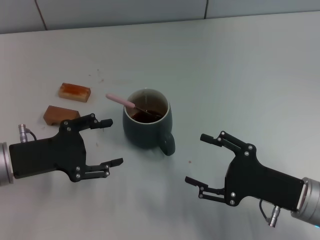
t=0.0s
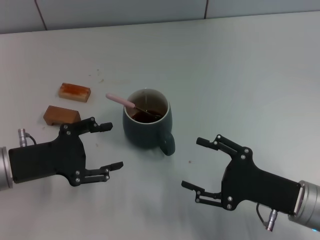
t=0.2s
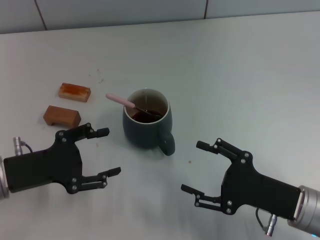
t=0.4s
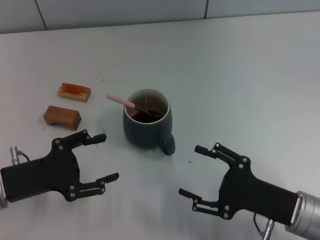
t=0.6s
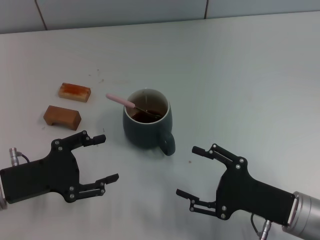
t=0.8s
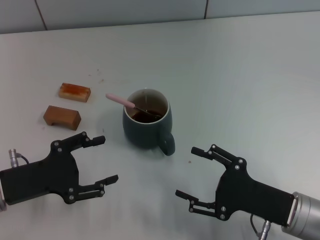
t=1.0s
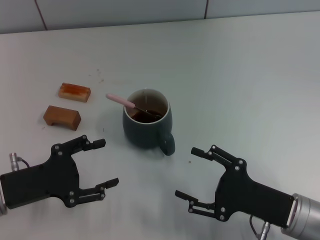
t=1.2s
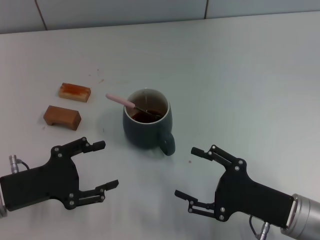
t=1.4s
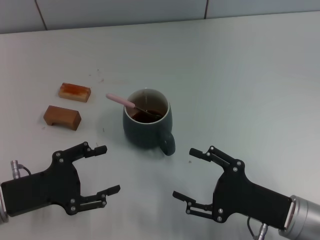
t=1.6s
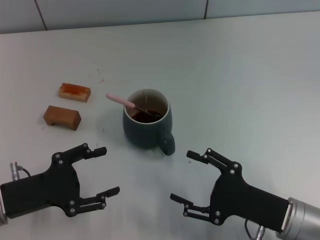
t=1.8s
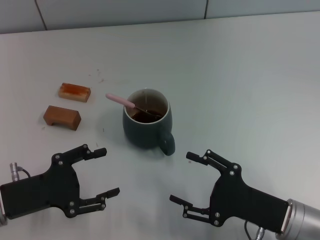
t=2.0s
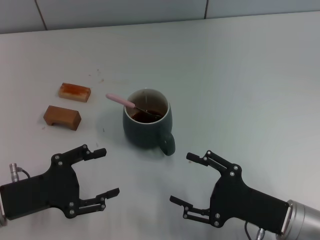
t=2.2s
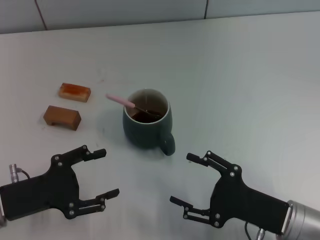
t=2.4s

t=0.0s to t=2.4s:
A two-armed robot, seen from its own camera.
Task of the whole recording: Move the grey cup to the center, lift the pink spoon, stir it three times in the cup, and put the spoon into the cup.
t=0.0s to t=2.4s: The grippers move only a little.

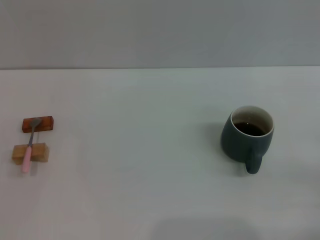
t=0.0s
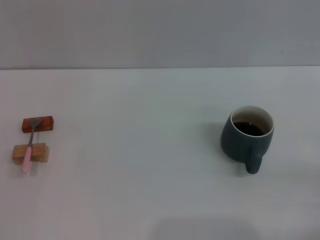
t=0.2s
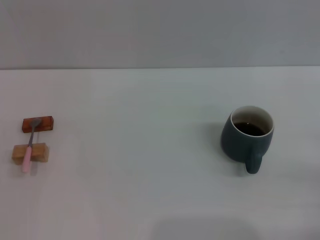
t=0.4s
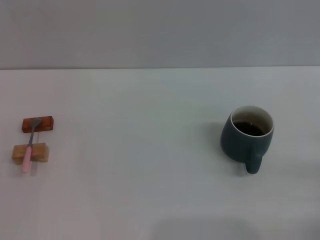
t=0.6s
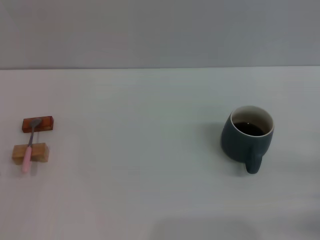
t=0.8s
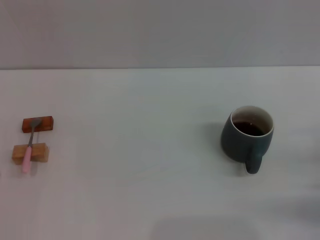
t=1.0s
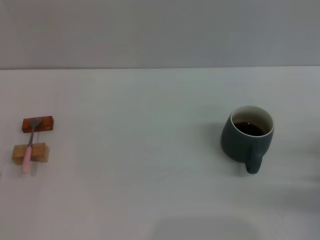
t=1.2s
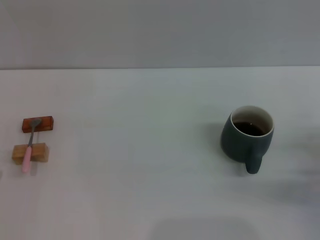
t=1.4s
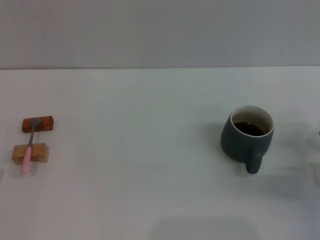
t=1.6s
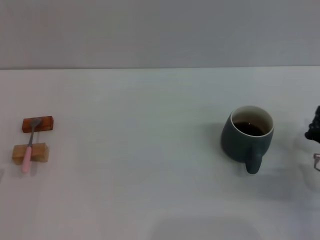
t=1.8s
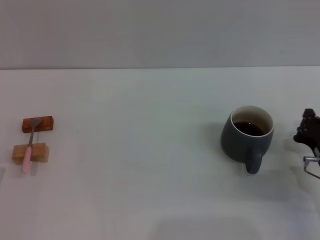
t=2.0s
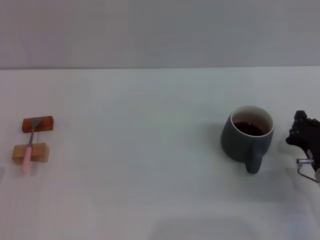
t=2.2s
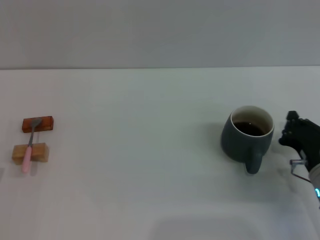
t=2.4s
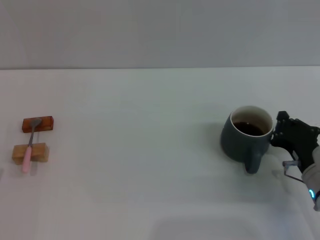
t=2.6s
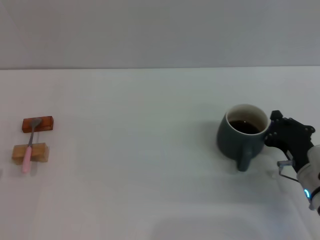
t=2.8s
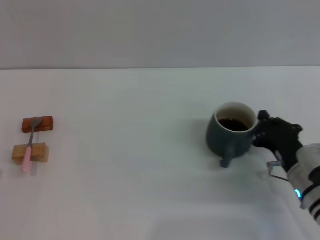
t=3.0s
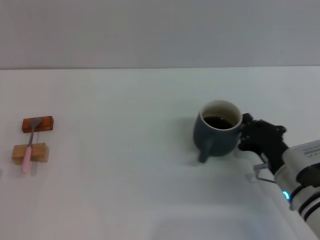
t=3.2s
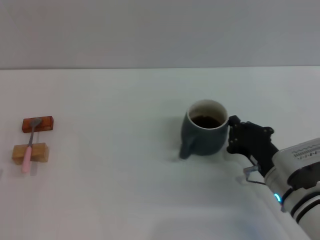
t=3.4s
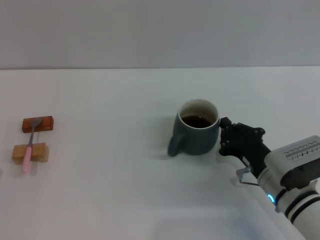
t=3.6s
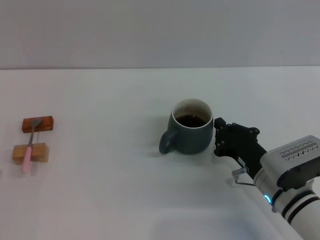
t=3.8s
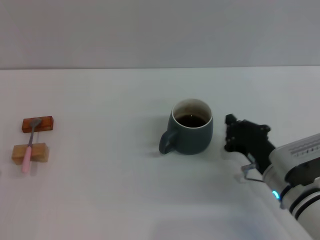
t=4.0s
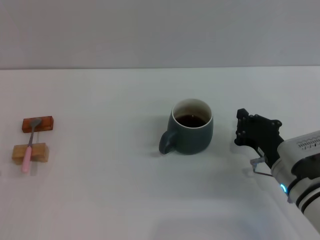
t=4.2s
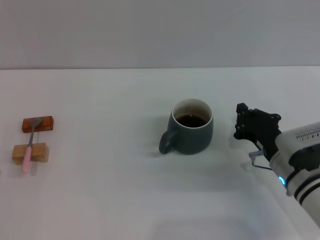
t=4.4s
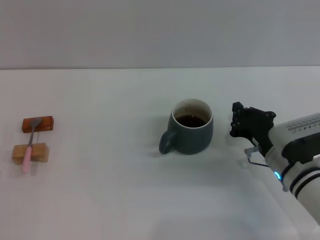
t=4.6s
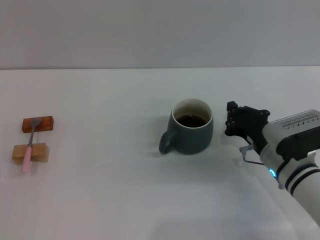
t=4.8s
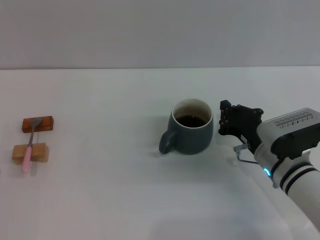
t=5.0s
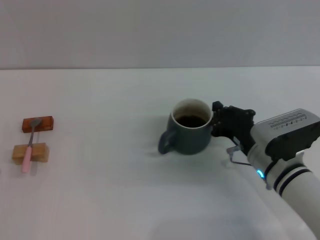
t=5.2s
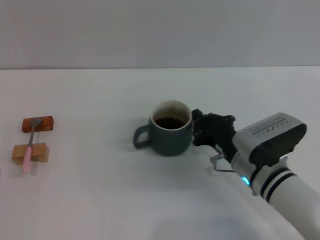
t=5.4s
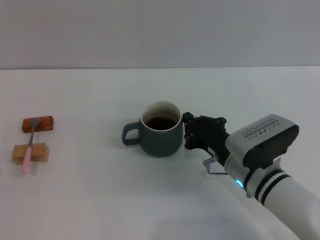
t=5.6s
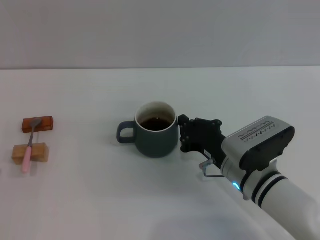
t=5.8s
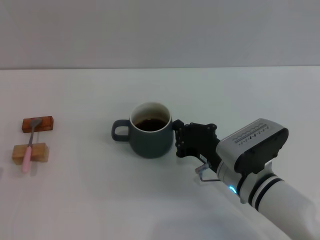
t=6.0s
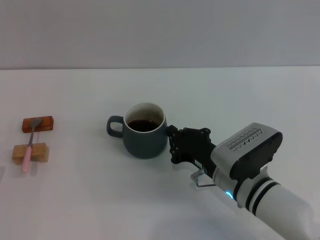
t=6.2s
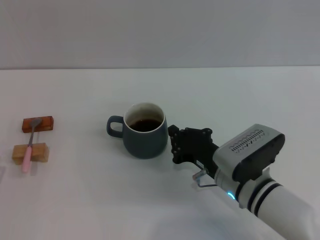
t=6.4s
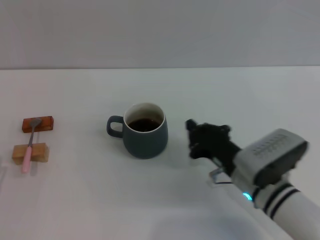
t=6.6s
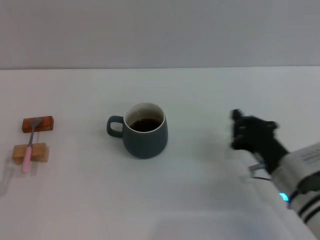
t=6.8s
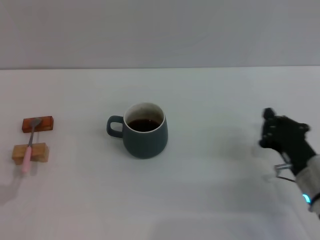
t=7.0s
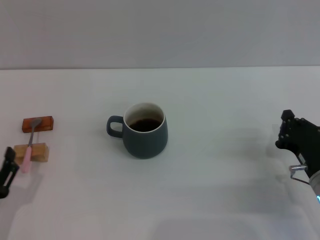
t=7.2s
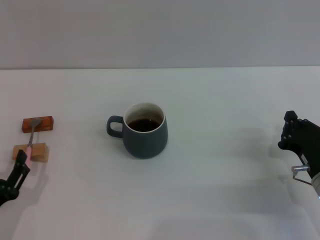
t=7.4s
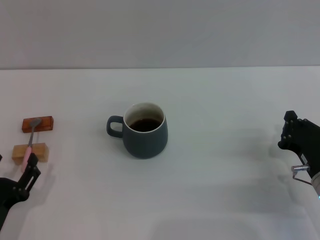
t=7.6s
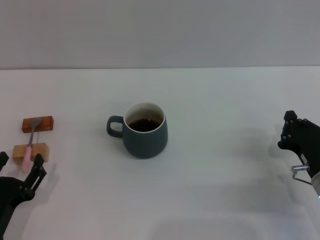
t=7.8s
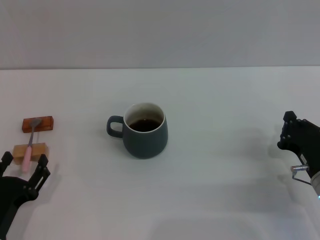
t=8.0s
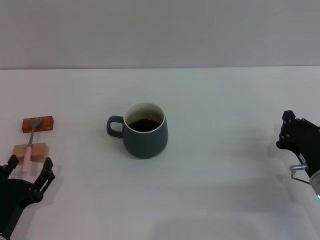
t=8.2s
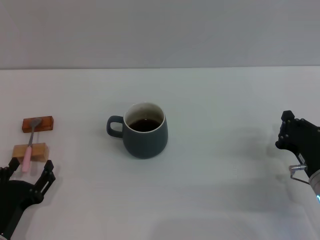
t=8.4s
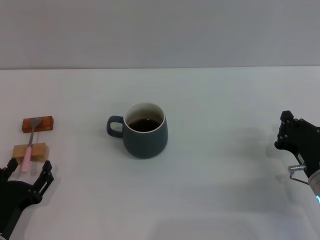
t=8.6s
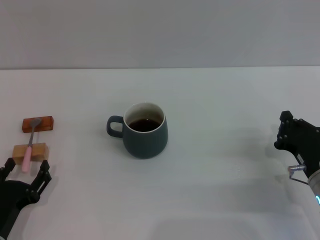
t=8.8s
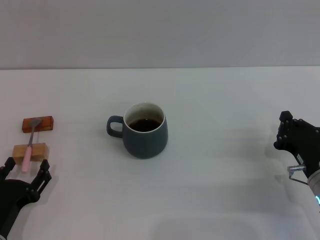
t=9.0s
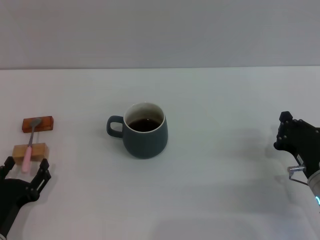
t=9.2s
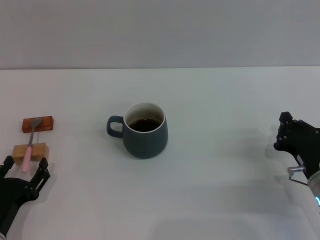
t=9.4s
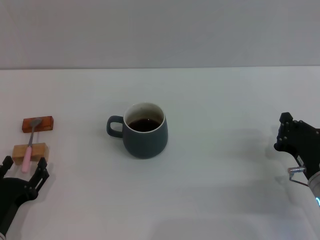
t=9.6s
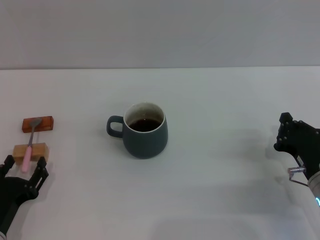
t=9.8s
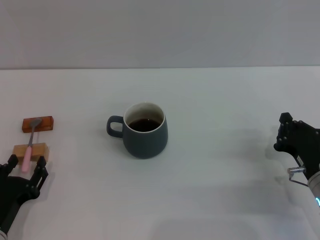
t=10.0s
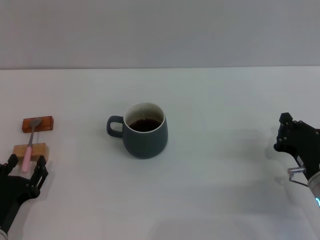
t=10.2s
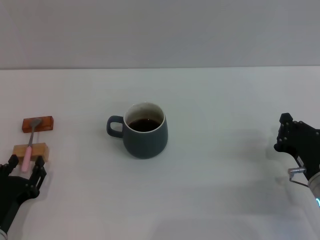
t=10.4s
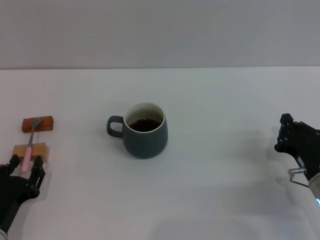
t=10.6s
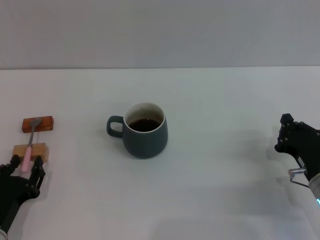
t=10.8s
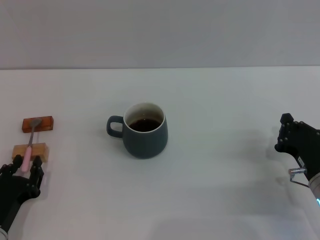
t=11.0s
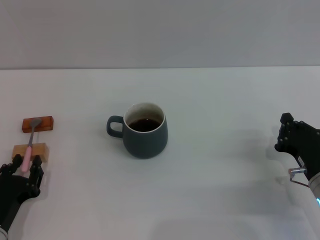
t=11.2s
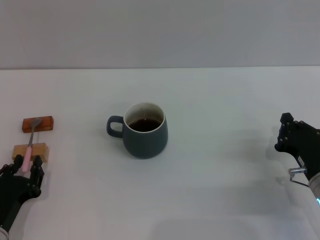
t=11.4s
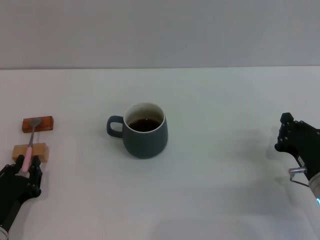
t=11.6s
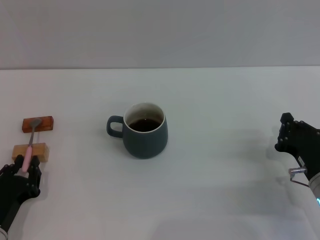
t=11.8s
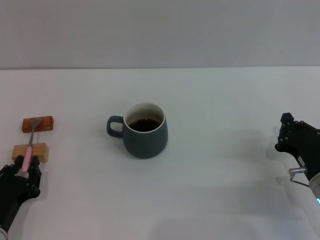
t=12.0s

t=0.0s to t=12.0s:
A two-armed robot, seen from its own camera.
Task of the whole recording: Move the grey cup to the center, lift the pink spoon, stir it three times in the cup, and put the spoon into the cup.
Step, t=0.0s to t=7.0s: Move the cup with coffee to the center of view with the right gripper.
t=0.0s to t=1.6s: The right gripper is displaced forward by some 10 cm.
t=1.6s to t=3.0s: The right gripper heads to the left, covering roughly 10 cm.
t=3.0s to t=4.4s: There are only small adjustments of the grippers.
t=4.4s to t=6.0s: The right gripper moves to the left, approximately 10 cm.
t=6.0s to t=7.6s: The left gripper ends up approximately 5 cm from where it was. Meanwhile the right gripper heads to the right, covering roughly 15 cm.
t=7.6s to t=9.0s: The grippers move only a little.
t=9.0s to t=10.4s: Neither gripper changes place.
t=10.4s to t=12.0s: The left gripper closes up.

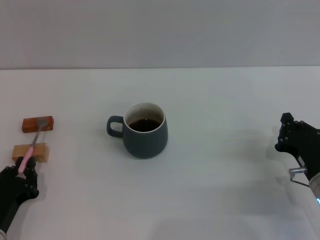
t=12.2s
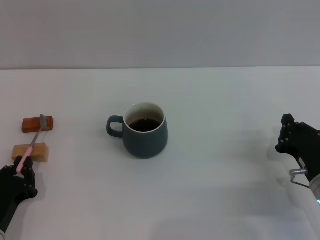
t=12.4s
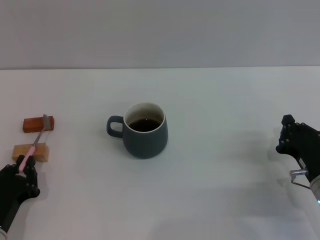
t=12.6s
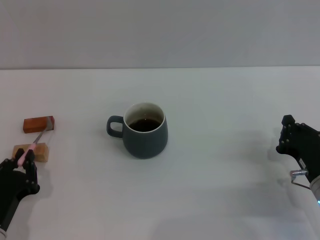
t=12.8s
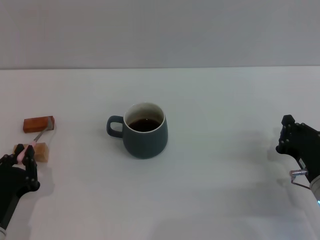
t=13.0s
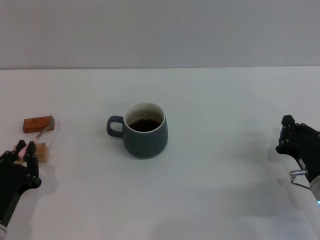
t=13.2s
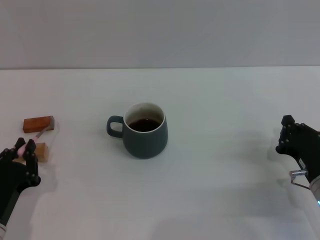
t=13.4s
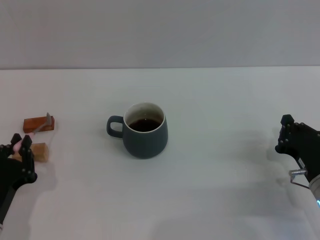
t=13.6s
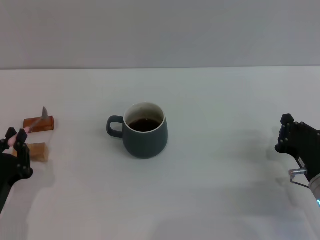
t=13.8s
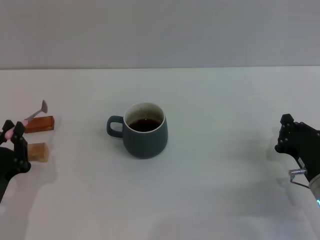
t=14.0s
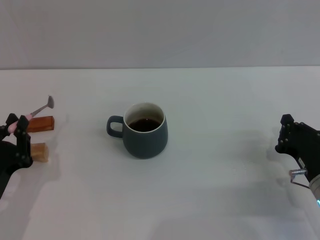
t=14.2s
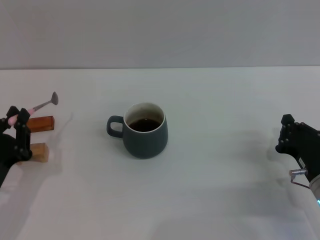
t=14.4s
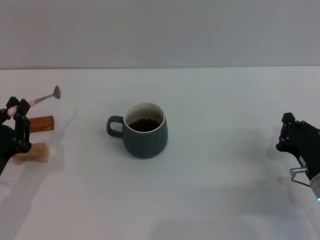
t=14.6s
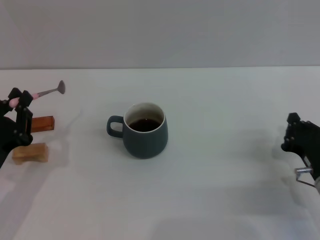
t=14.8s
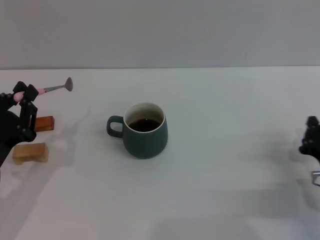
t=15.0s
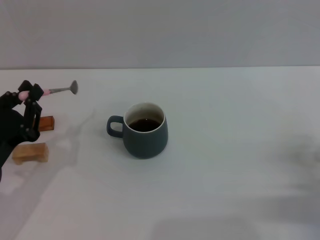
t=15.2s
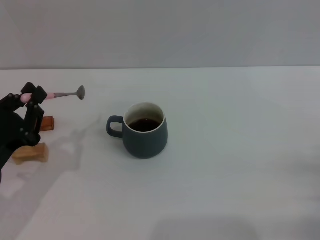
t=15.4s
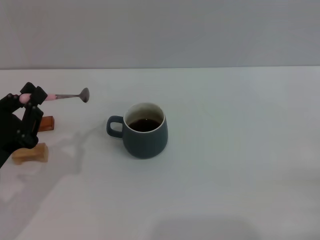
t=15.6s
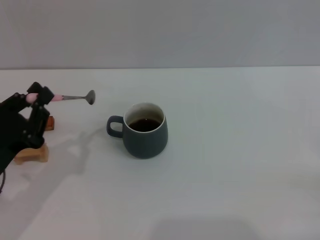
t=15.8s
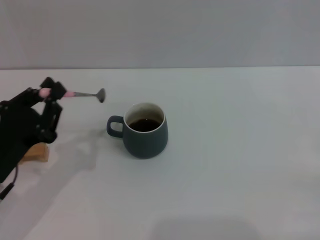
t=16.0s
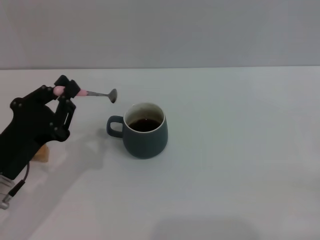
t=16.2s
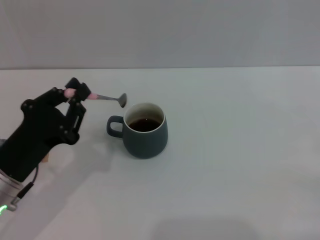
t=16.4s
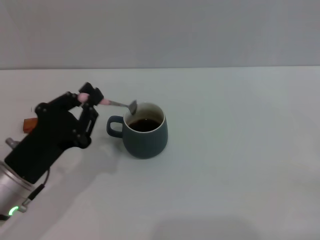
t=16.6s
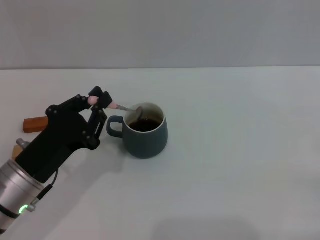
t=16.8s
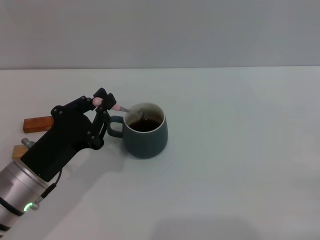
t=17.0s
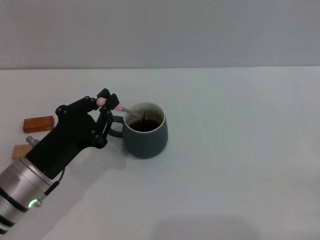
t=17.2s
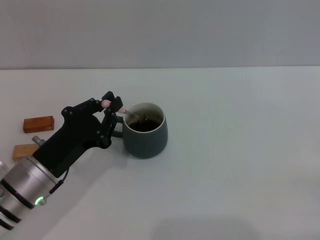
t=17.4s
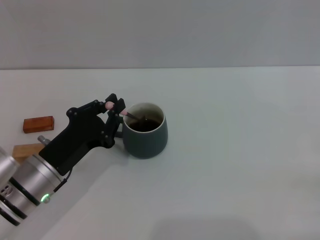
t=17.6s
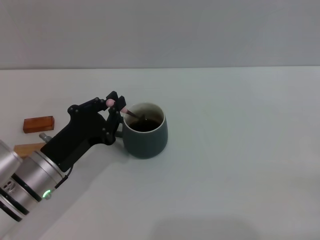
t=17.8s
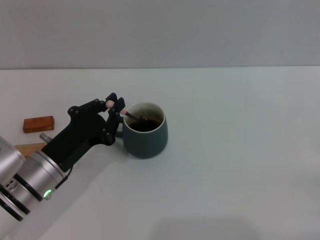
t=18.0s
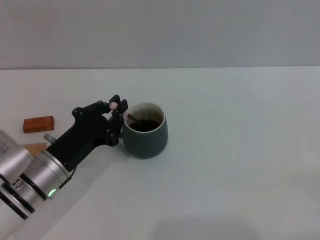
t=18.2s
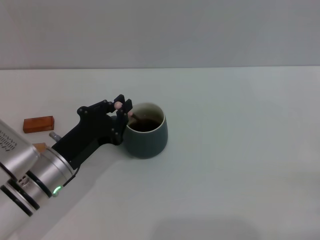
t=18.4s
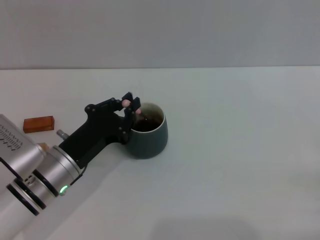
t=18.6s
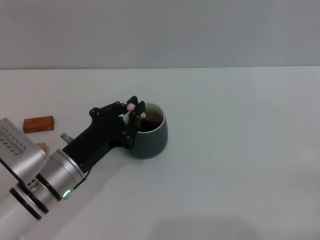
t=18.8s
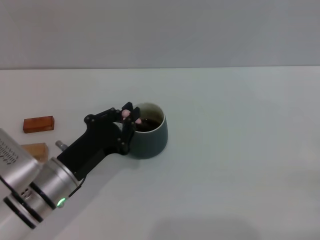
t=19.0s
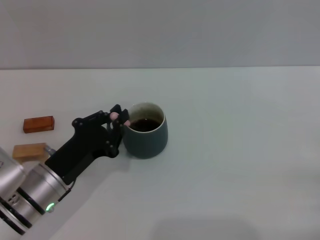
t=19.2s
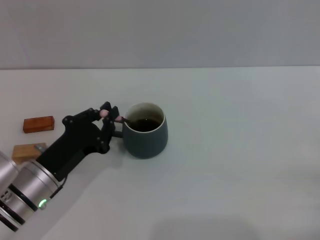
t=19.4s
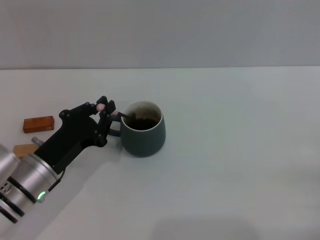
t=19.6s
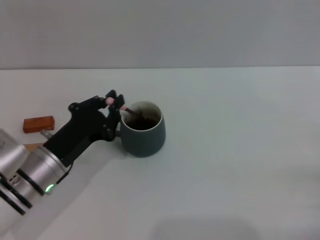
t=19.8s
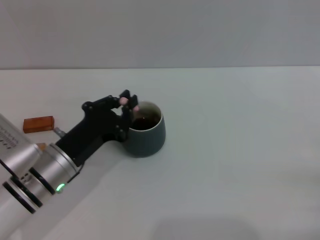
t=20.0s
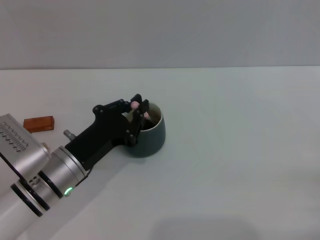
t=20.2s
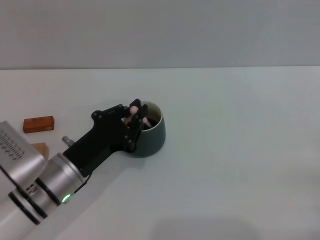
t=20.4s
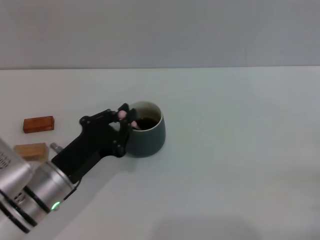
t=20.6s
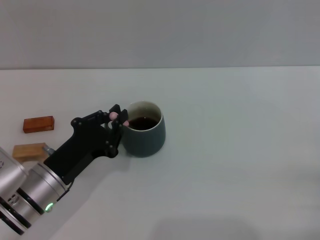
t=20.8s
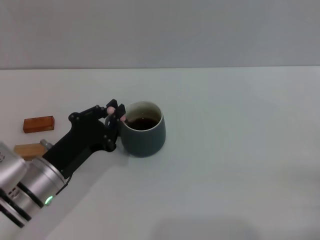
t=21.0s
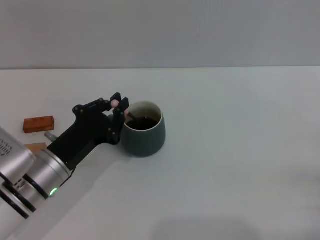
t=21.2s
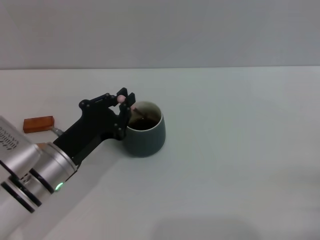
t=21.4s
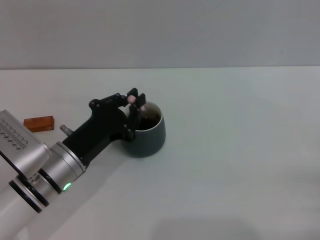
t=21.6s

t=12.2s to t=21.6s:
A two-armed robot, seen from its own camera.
Task of the whole recording: Move the grey cup to the center, lift the pink spoon, stir it three times in the cup, and put the spoon into the cup.
Step, t=12.2s to t=14.2s: Pick up the spoon with the left gripper.
t=12.2s to t=13.8s: There are only small adjustments of the grippers.
t=13.8s to t=15.4s: The right gripper shifts roughly 10 cm to the right, while the left gripper goes approximately 5 cm upward.
t=15.4s to t=17.0s: The left gripper is displaced to the right by approximately 5 cm.
t=17.0s to t=18.4s: The left gripper shifts by about 5 cm.
t=18.4s to t=21.6s: The grippers stay close to where they were, moving slightly.
